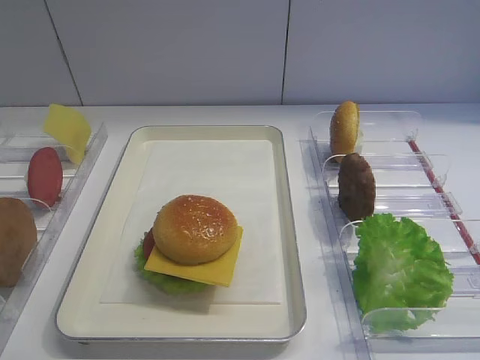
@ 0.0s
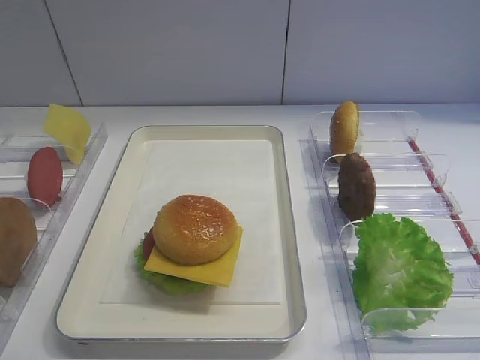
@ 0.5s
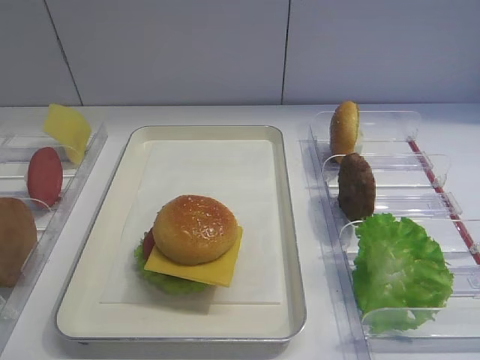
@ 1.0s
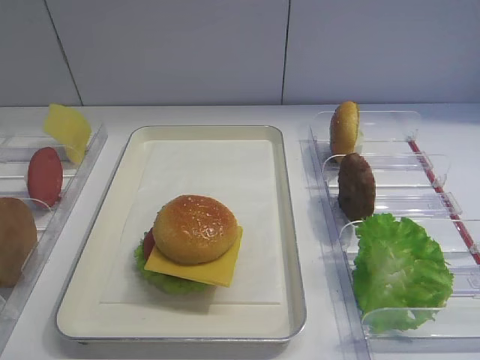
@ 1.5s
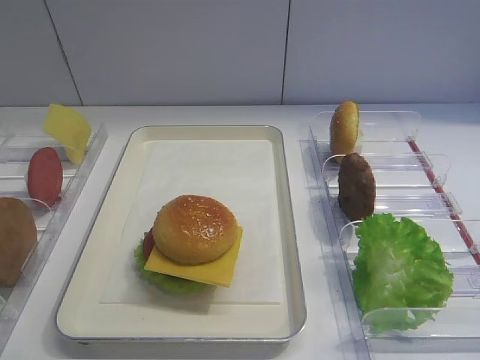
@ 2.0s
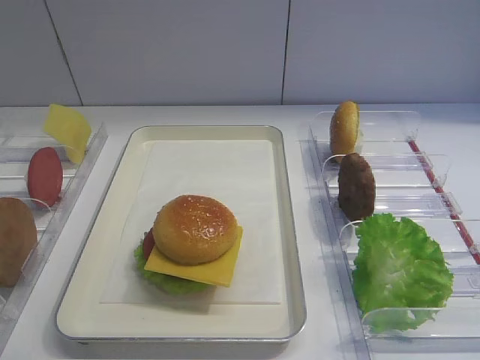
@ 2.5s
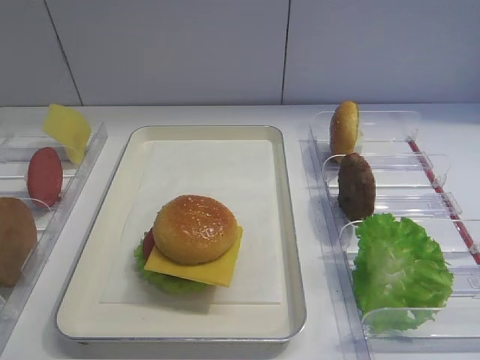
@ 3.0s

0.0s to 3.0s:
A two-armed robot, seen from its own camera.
0.0s to 3.0s: Both grippers stay put.
